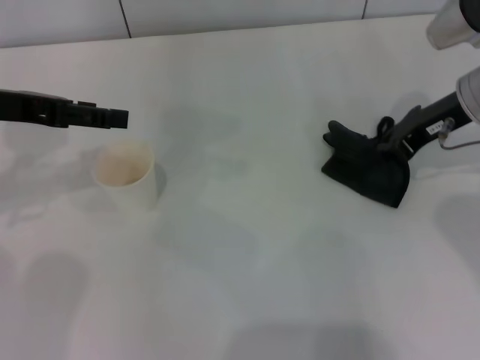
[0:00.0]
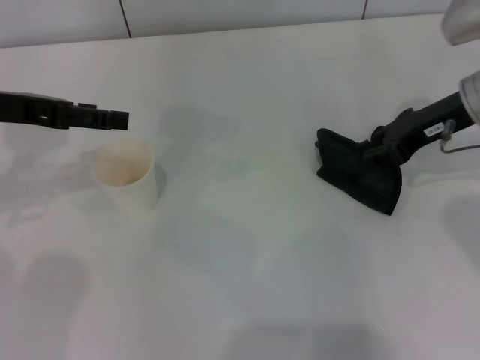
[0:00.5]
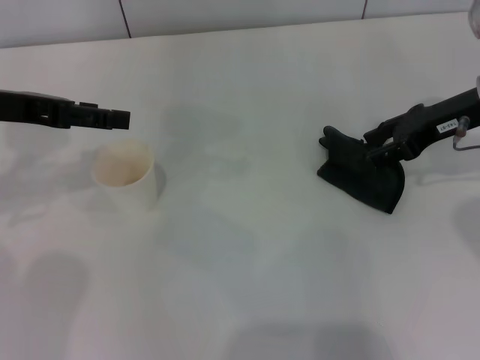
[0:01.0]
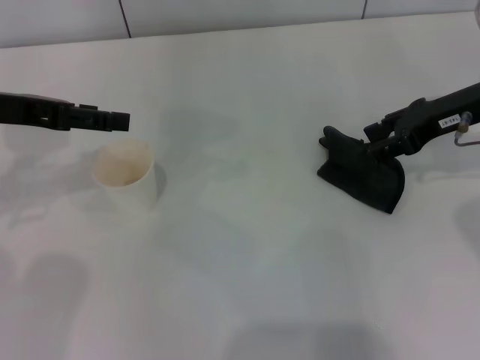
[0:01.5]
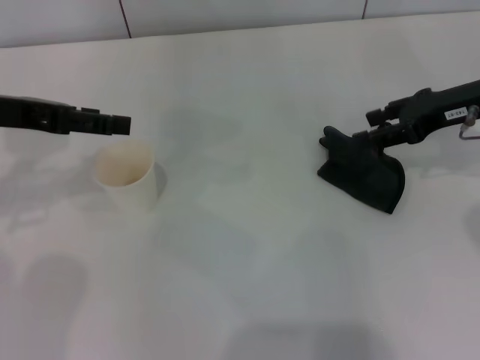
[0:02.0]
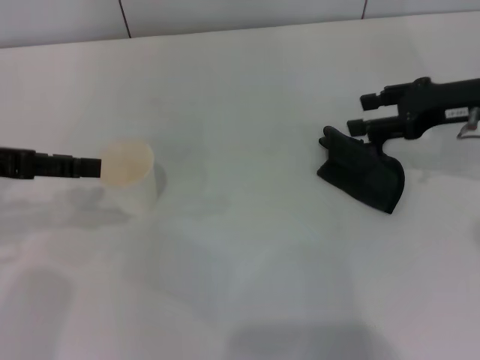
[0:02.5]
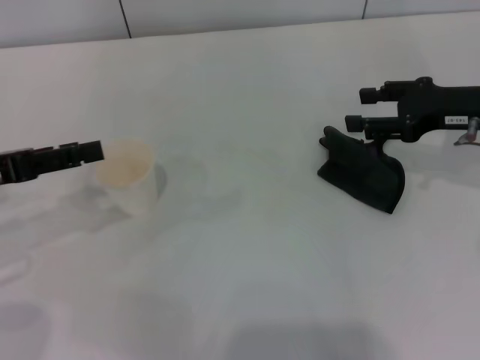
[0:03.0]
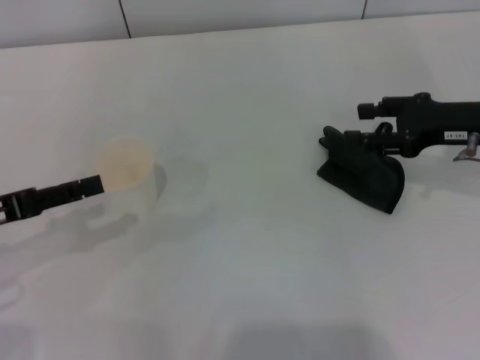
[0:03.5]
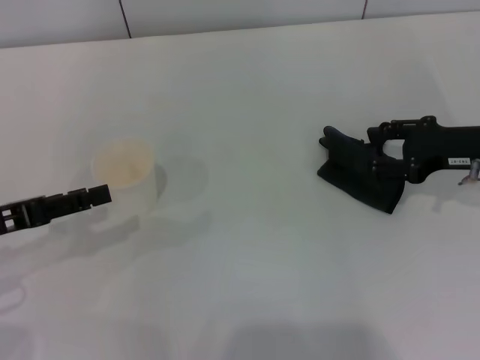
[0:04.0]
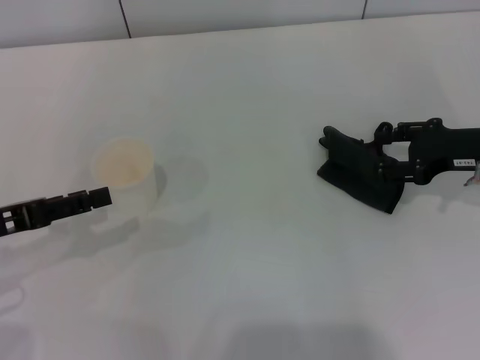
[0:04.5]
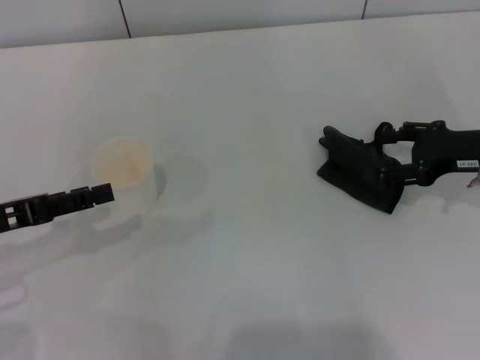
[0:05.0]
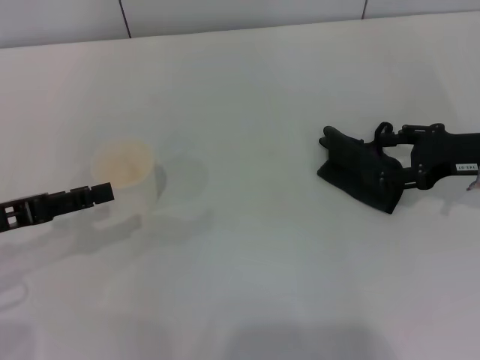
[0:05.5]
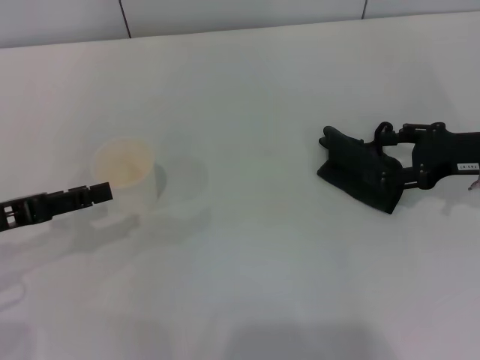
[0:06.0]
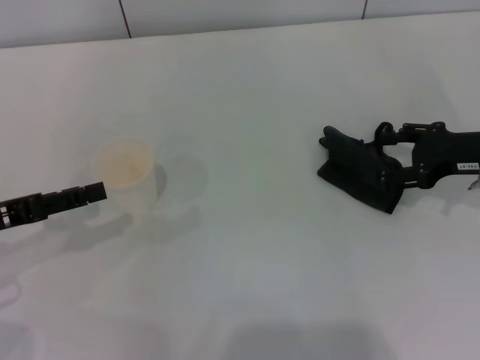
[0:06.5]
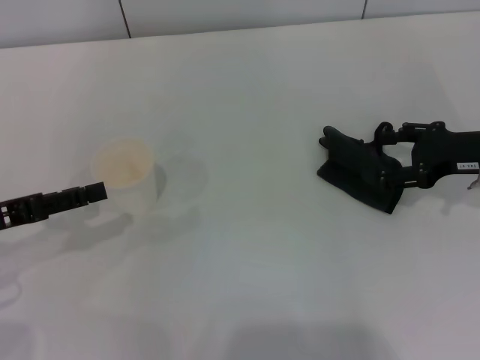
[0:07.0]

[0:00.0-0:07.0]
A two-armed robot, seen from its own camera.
Step, 0.0 to 2.0 s: Place the rag on the table with the right gripper.
0.0 to 2.0 s: The right gripper opens up.
2.0 to 3.5 s: The left gripper goes roughly 10 cm backward and downward.
3.5 to 5.0 s: There are only small adjustments of the grippers.
5.0 to 7.0 s: Neither gripper changes place.

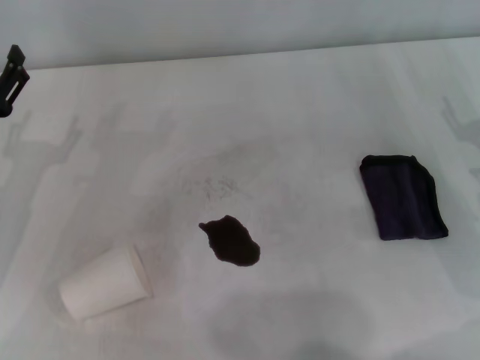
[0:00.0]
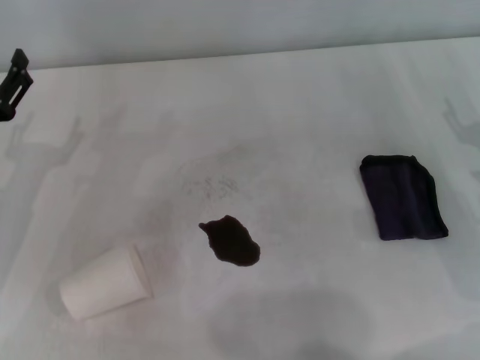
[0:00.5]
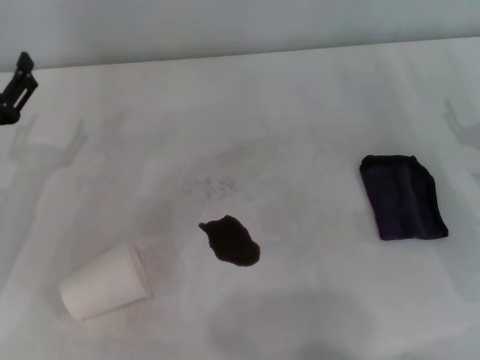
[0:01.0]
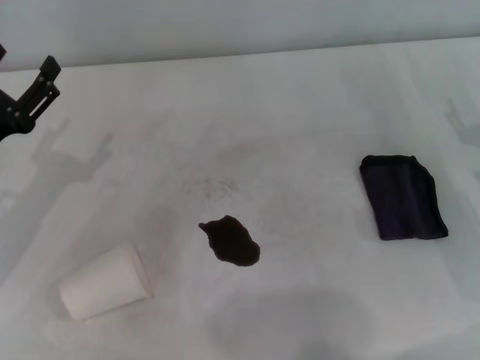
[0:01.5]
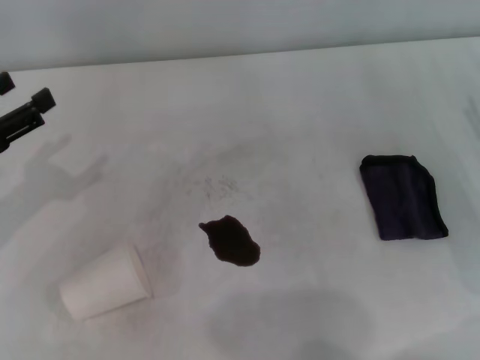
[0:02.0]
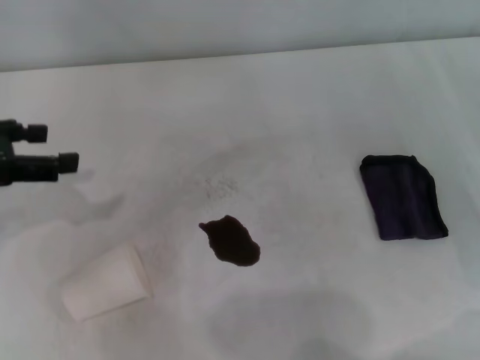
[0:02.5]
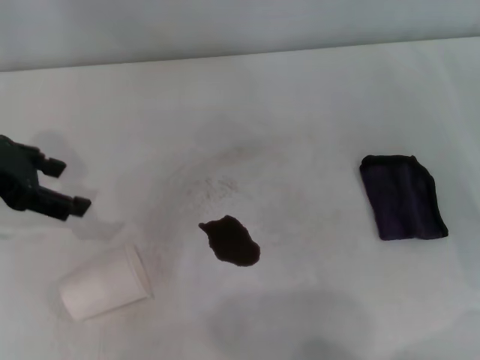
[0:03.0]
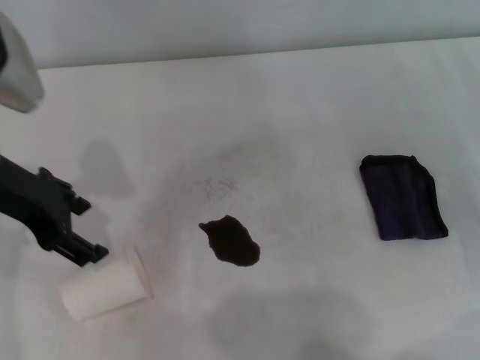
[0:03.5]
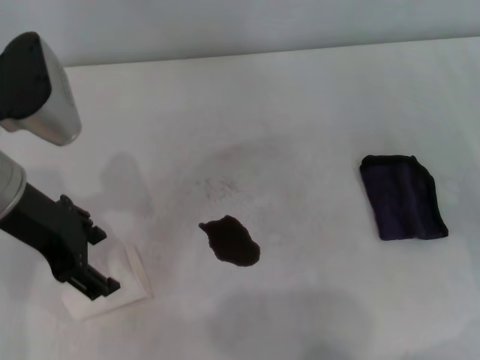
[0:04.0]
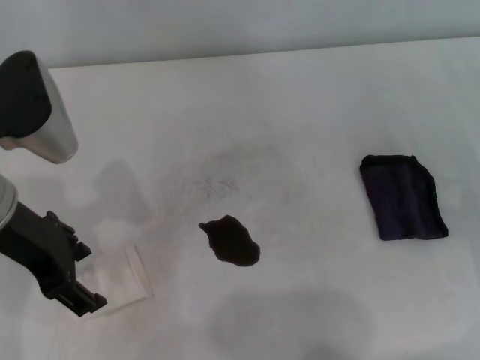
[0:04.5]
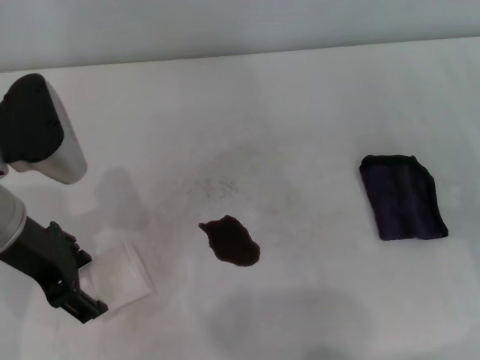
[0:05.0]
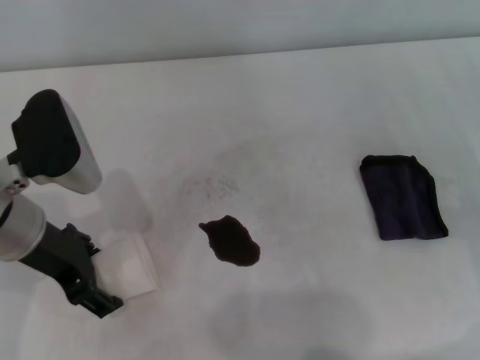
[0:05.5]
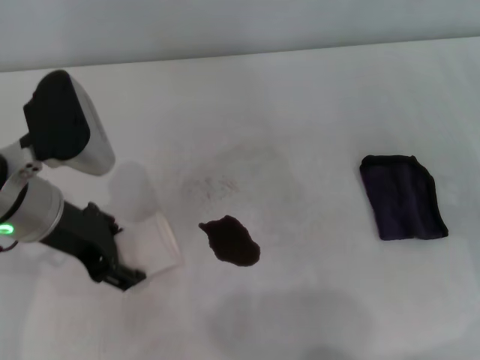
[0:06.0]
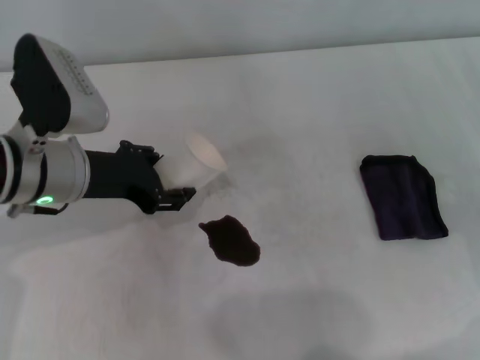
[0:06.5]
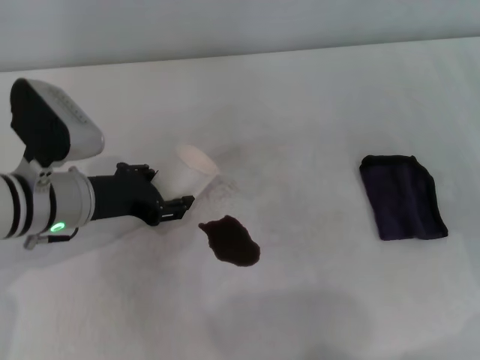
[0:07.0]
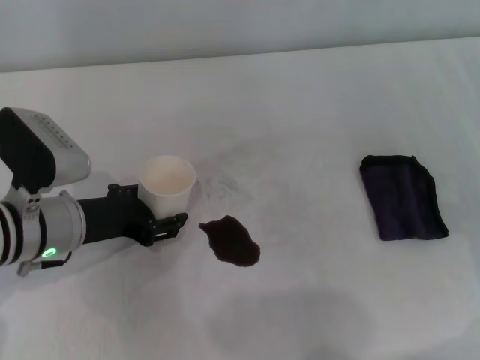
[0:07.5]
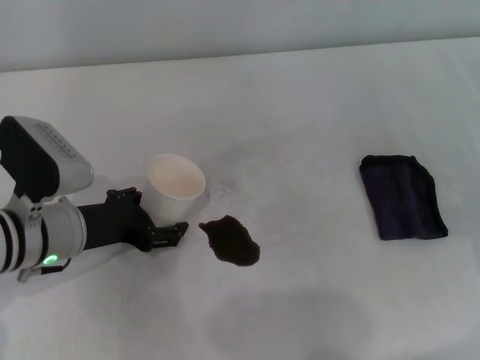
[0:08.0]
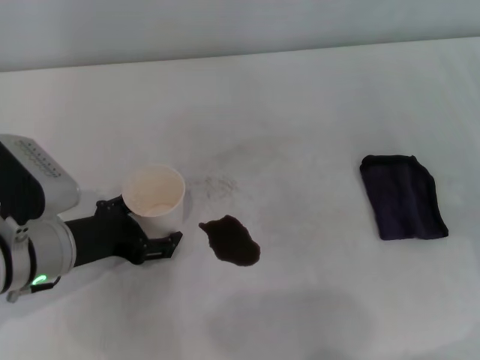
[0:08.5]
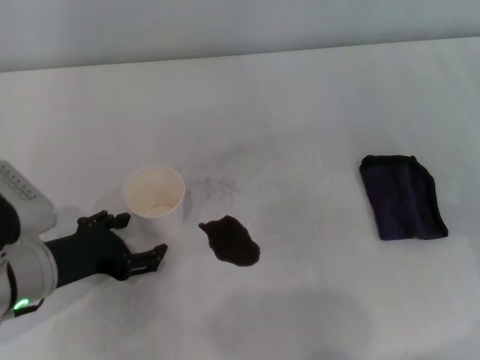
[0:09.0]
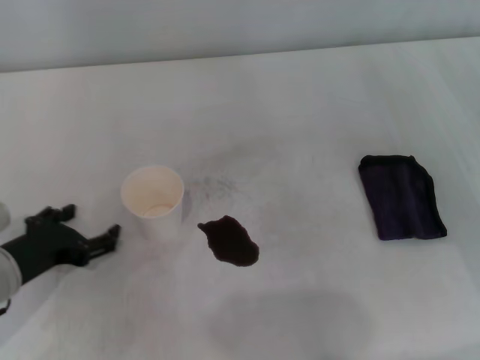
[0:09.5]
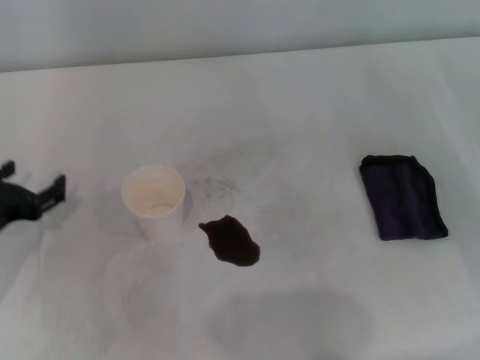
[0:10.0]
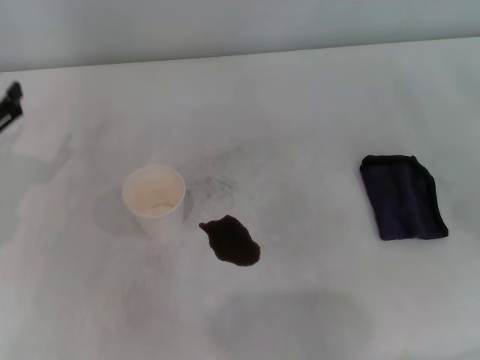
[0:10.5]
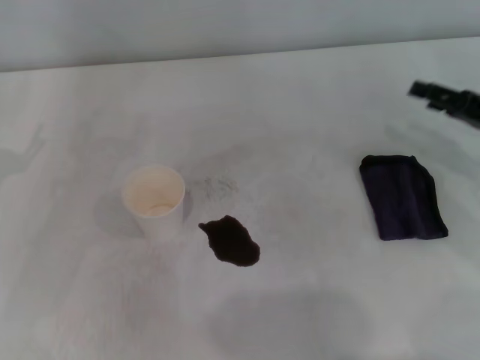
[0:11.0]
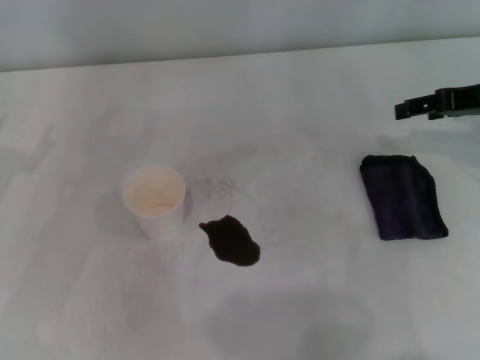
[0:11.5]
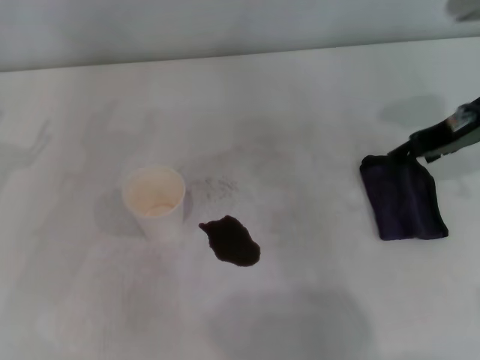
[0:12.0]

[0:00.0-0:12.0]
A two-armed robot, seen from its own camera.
Step, 0.0 to 5.5 s: Grasp the paper cup with the left gripper.
Step, 6.0 to 8.0 s: Stand the paper cup upright with the left gripper.
0.0 to 2.0 s: The left gripper shifts roughly 5 cm upward.
2.0 to 4.0 s: The left gripper shifts about 15 cm to the right and upward.
4.0 to 6.0 s: The left gripper closes up.
6.0 to 8.0 s: The left gripper shifts approximately 10 cm downward.
8.0 to 10.0 s: The left gripper shifts some 10 cm to the left, and opens its fingers.
10.0 to 12.0 s: The left gripper ends up about 5 cm from where it was. The right gripper is displaced upward, to the left and forward by roughly 20 cm.

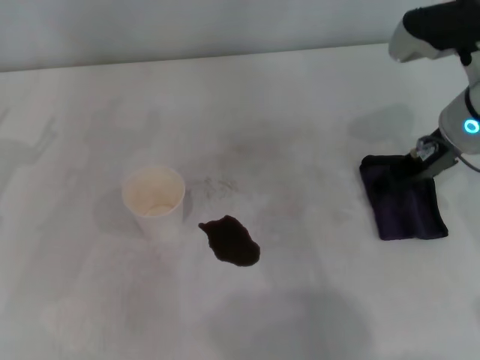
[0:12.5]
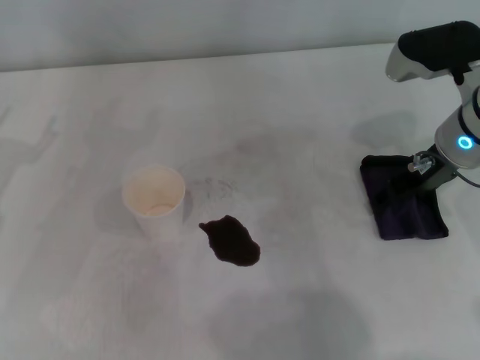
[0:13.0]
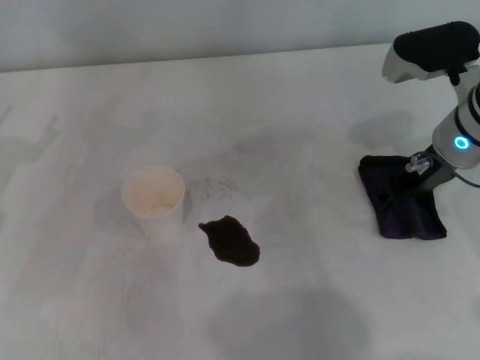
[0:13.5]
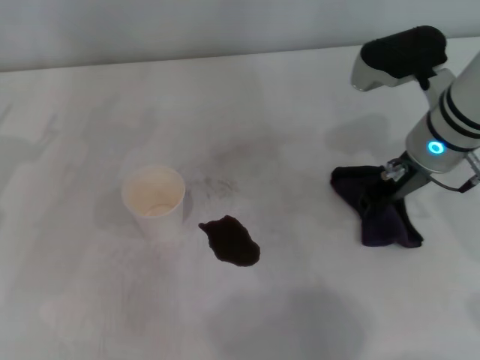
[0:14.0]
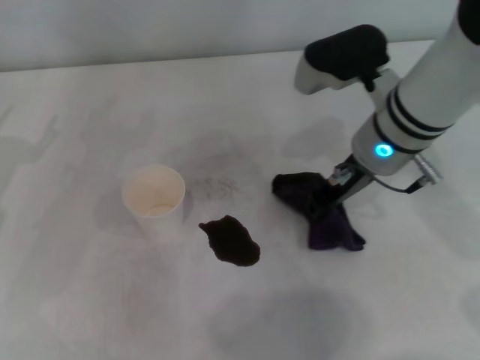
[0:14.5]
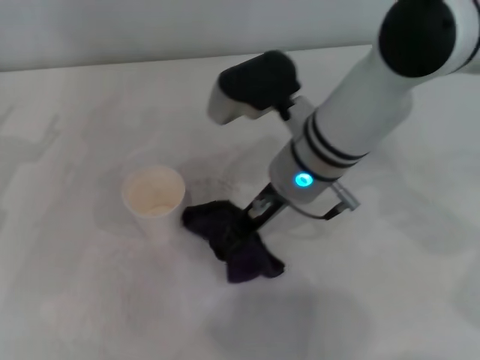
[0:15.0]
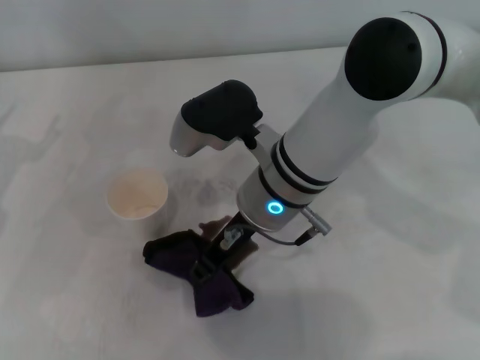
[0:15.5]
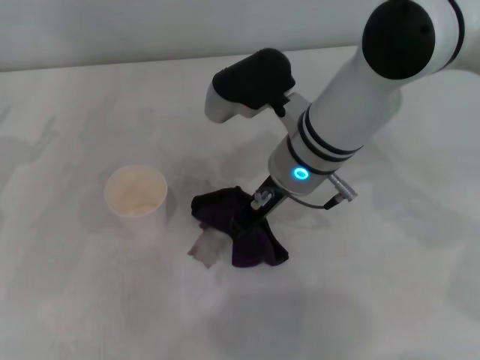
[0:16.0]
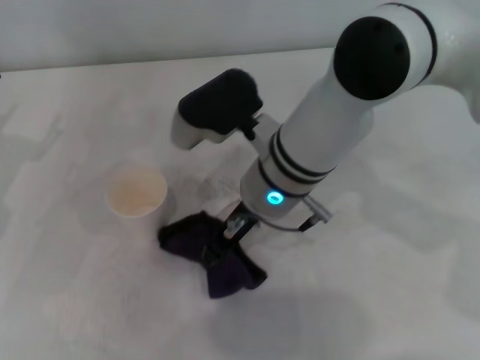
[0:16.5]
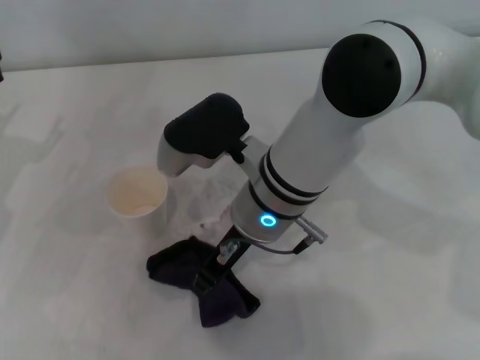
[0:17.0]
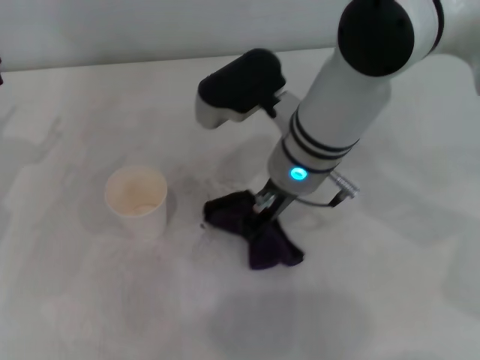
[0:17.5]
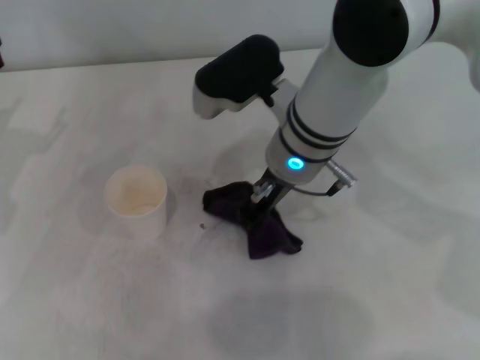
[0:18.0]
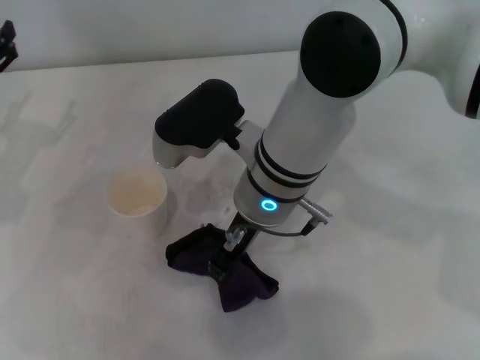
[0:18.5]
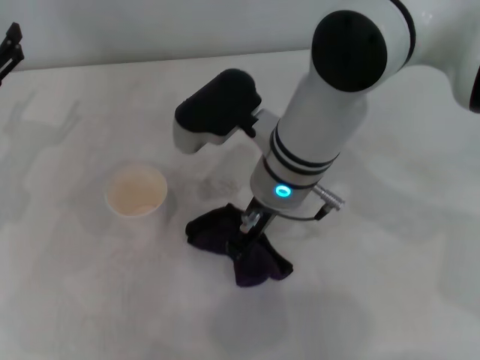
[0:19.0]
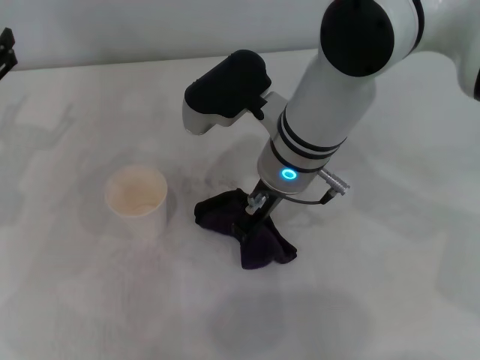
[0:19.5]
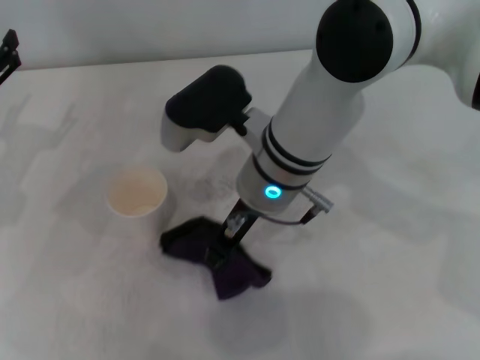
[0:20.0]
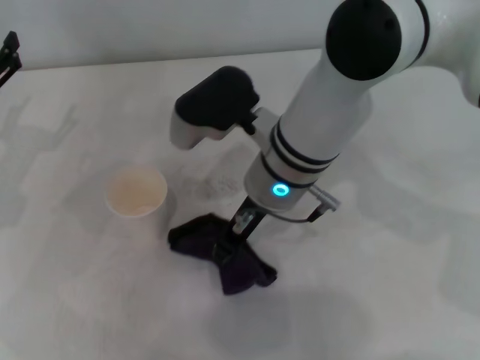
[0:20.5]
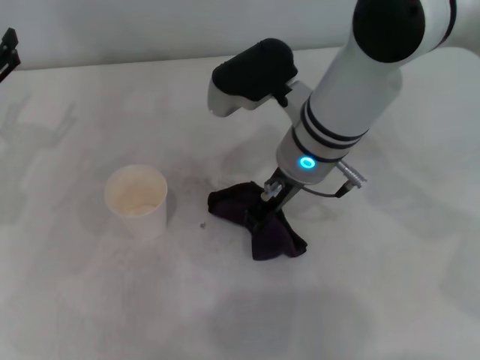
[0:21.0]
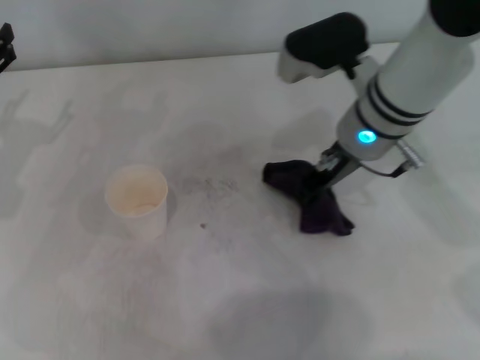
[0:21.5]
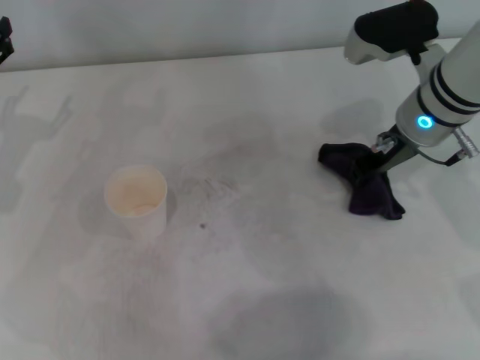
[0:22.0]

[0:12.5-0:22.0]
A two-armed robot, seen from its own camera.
12.5 to 14.5 s: The right gripper is displaced to the left by about 10 cm, and closes.
14.5 to 16.5 s: The right gripper shifts approximately 10 cm to the left.
16.5 to 20.0 s: The grippers make only small movements.
20.0 to 22.0 s: The right gripper goes roughly 15 cm to the right.
